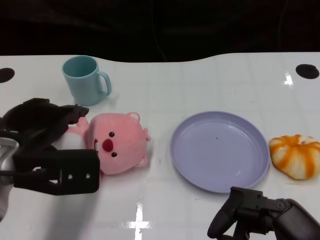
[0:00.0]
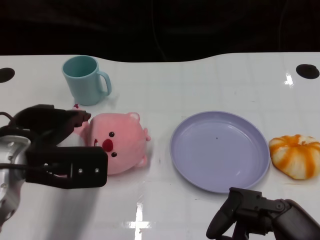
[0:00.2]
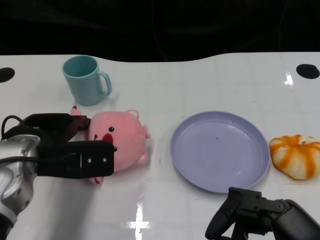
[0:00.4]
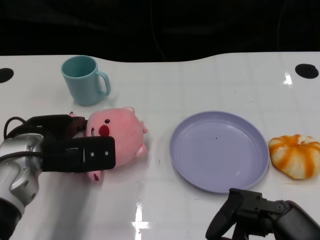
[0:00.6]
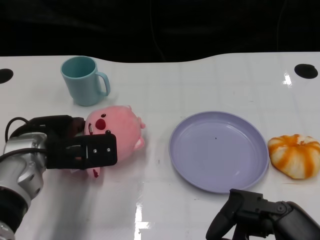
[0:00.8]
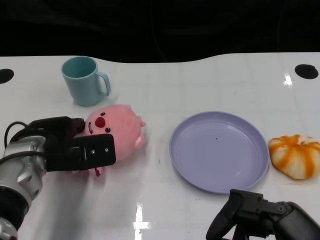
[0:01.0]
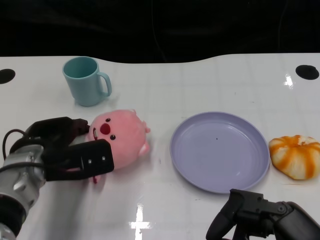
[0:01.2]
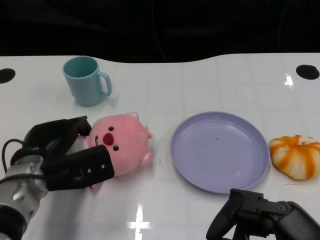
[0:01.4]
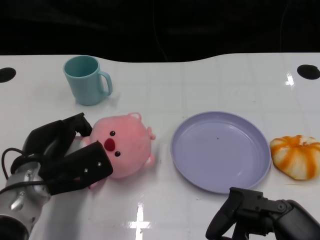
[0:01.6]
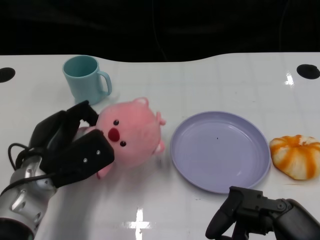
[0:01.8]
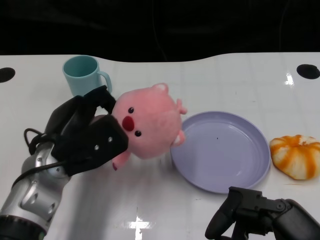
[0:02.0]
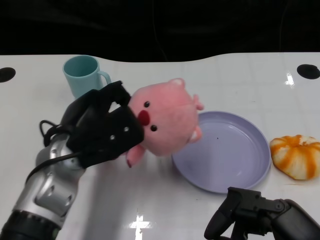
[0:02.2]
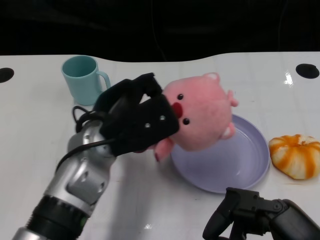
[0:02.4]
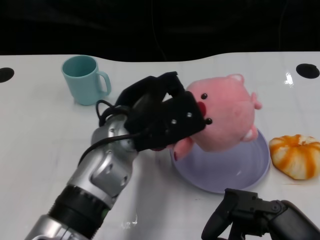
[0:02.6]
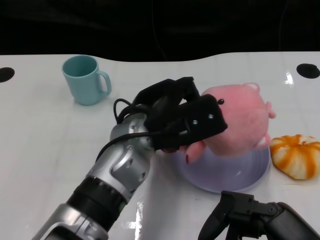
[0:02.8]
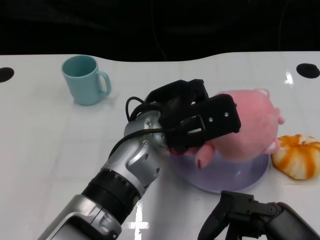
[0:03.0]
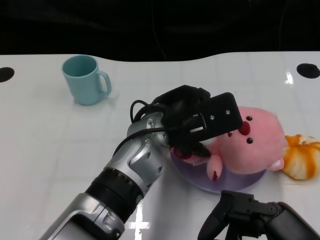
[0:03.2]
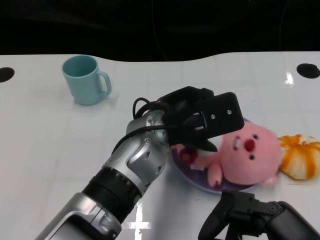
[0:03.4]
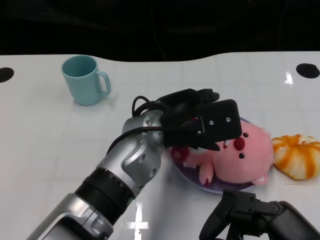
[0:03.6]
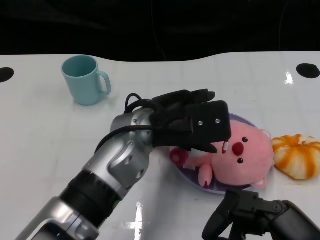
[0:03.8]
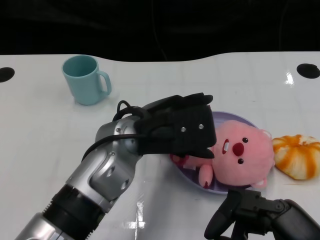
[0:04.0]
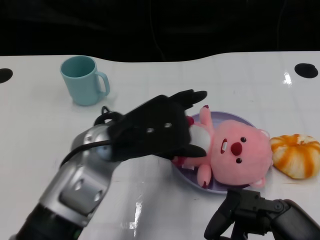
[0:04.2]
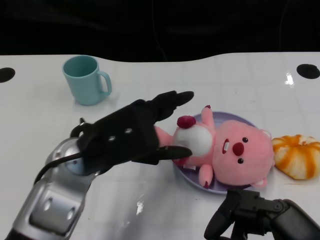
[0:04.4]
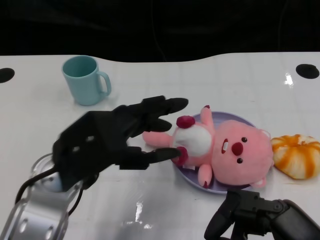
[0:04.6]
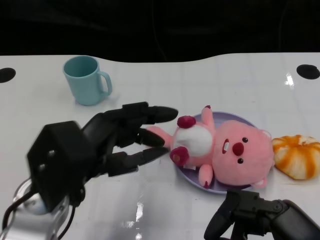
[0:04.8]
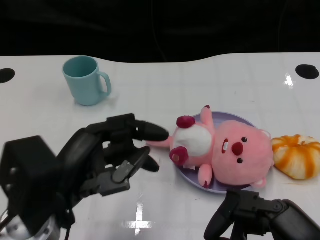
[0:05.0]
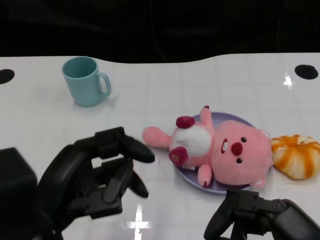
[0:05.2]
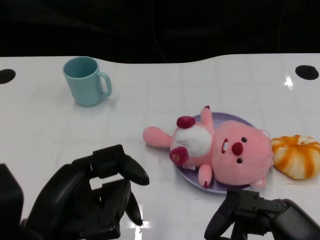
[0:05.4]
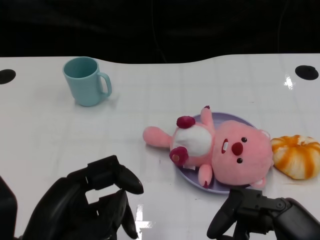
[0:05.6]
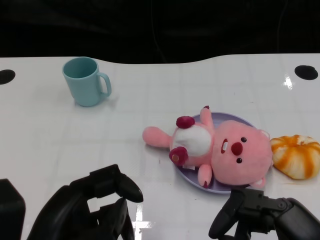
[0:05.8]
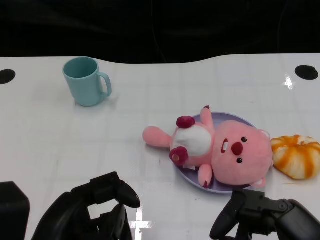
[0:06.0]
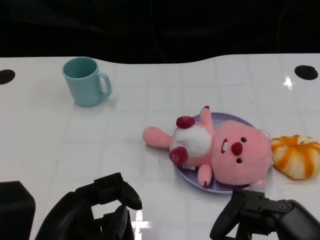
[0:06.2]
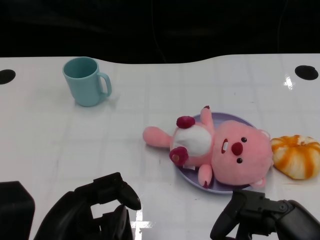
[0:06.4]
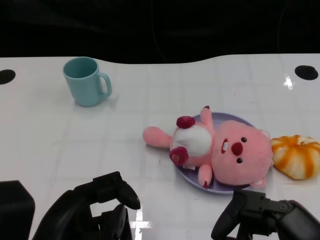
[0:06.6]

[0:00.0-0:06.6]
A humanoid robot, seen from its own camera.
Task of the whole recording: Pick up the doll on one side of the plate and place it into the plate.
Step, 0:01.8 to 0:03.8: Place the pink doll into the plate with the left gripper.
0:00.0 to 0:01.6: The left hand moves downward, some 10 cm.
0:01.6 to 0:03.2: The left hand shifts about 20 cm to the right and upward.
0:03.2 to 0:05.0: The left hand travels to the left and backward by about 20 cm.
0:05.0 to 0:06.6: The left hand heads backward, covering about 5 cm.

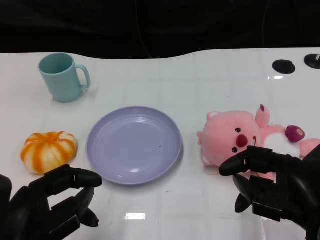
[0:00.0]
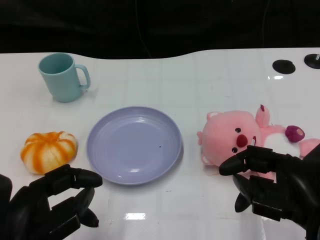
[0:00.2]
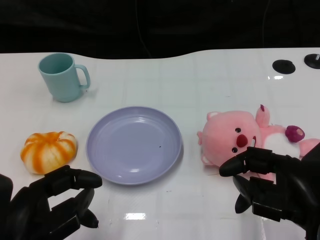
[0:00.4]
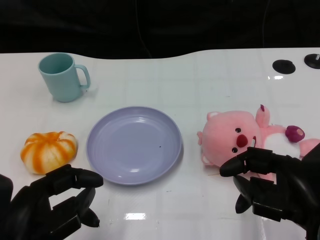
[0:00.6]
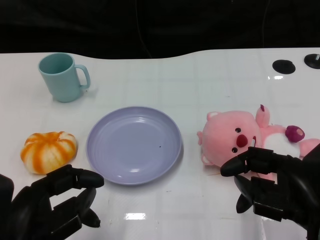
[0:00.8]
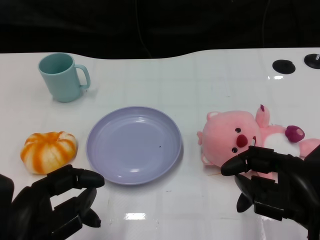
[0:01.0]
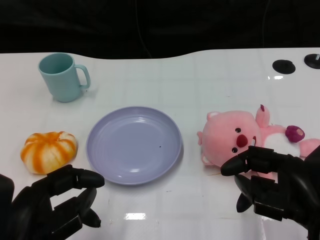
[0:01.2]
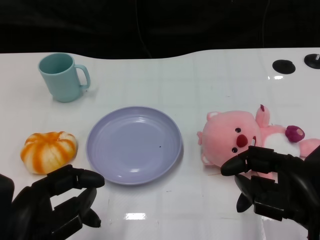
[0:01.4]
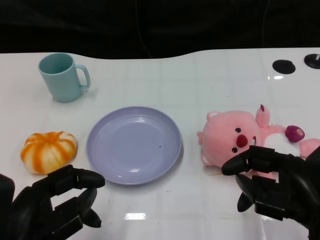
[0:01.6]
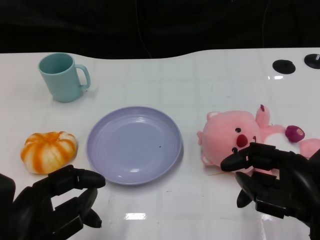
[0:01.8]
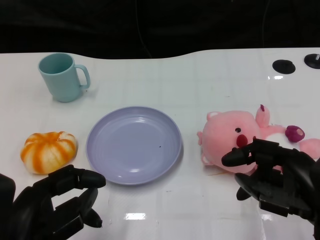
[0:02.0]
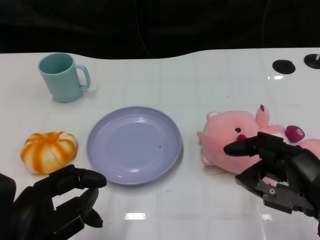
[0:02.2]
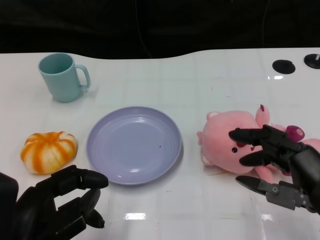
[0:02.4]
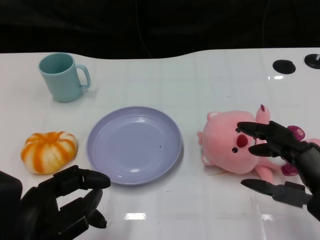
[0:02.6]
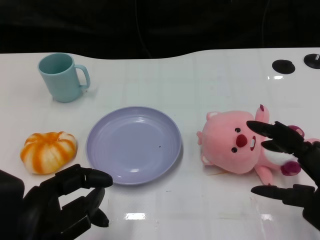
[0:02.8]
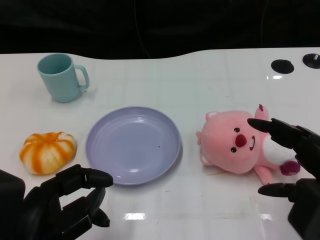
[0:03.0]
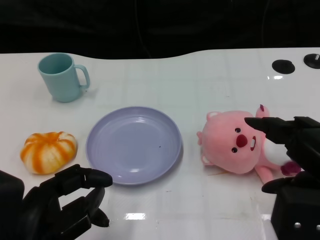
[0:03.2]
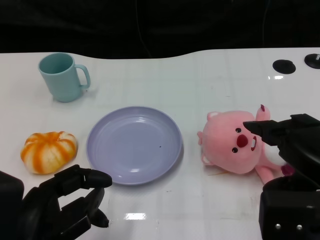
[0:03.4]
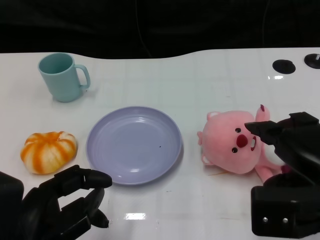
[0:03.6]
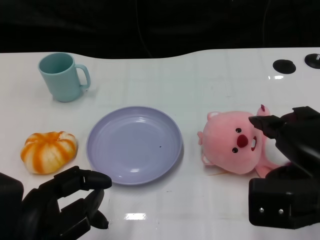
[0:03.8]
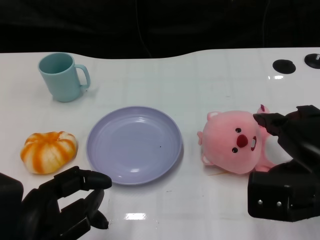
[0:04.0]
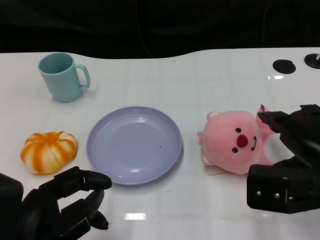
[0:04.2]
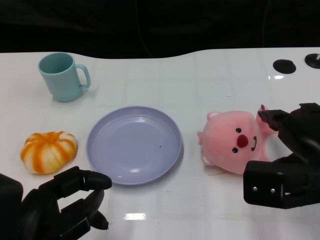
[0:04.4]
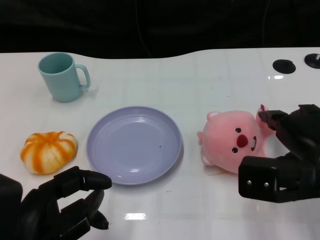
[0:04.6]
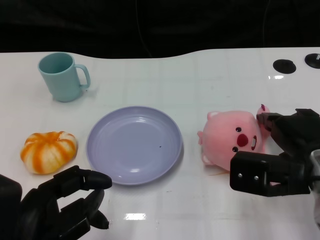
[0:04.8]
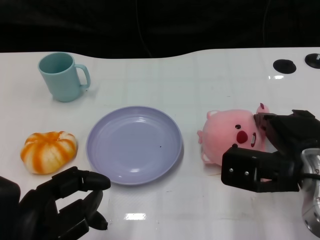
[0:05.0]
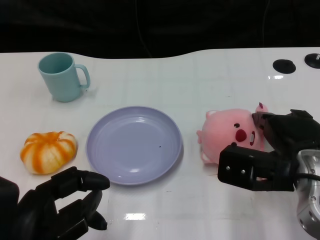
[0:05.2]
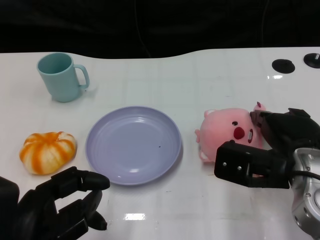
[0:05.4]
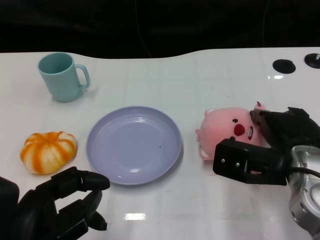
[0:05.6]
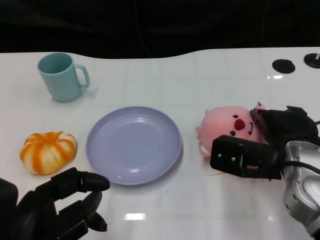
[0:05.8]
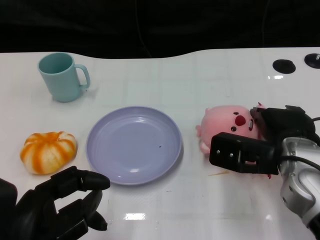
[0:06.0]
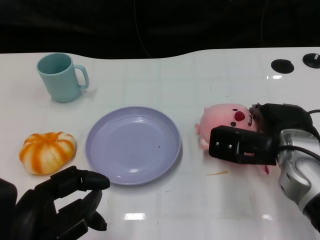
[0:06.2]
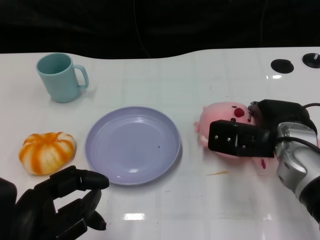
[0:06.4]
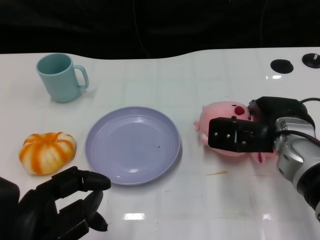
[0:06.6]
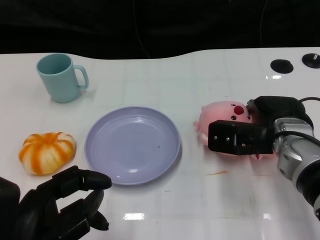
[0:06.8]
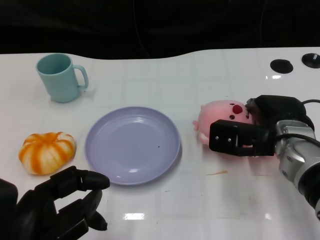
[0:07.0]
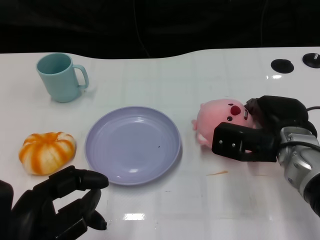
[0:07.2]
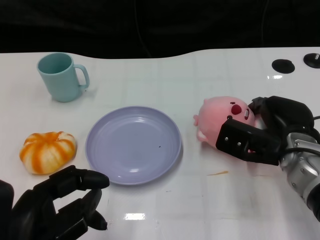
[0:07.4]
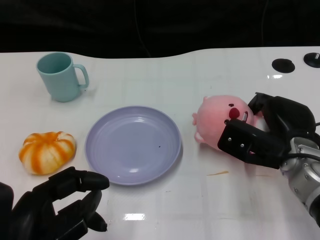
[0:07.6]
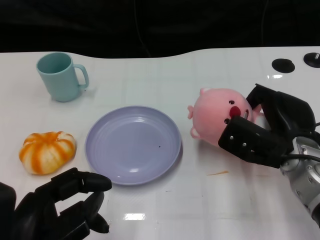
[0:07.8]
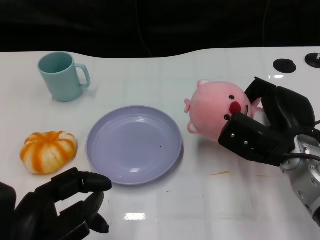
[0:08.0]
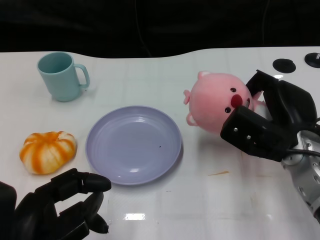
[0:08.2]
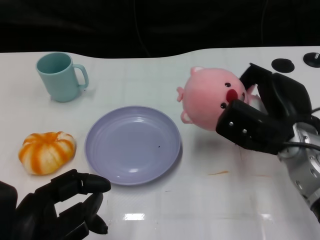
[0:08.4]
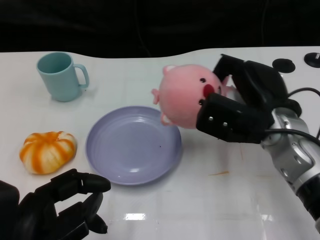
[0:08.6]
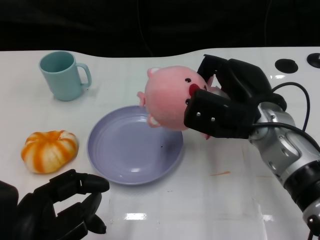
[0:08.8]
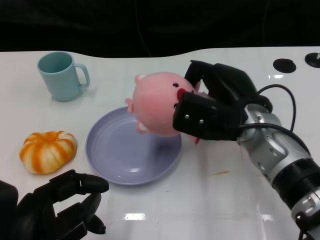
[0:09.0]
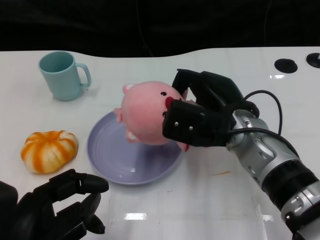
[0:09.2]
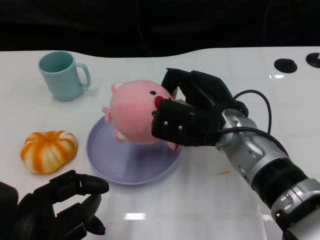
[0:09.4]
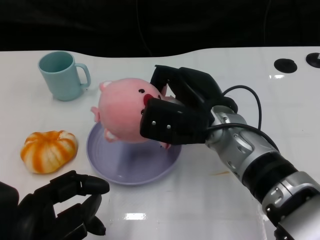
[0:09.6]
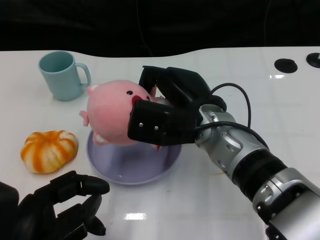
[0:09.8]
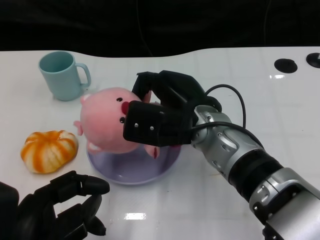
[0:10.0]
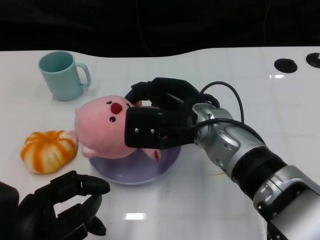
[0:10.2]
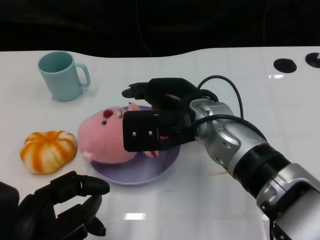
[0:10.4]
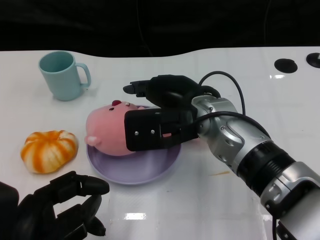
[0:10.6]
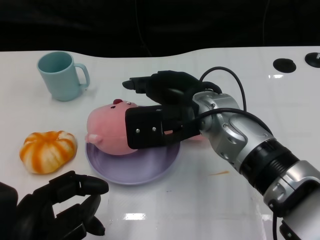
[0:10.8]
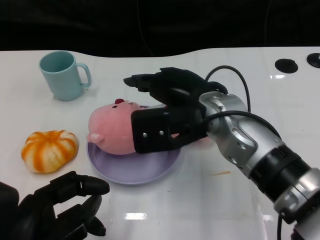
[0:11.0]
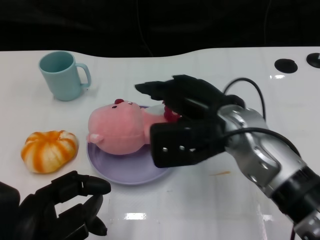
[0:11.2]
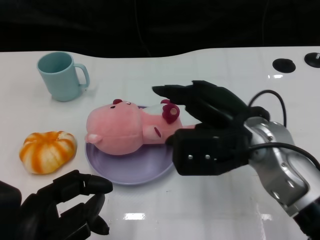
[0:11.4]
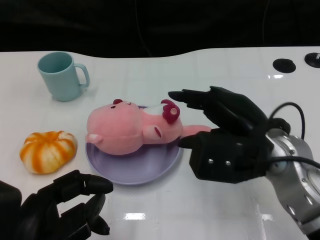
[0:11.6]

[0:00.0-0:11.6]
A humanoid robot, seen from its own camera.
Task of the whole recording: Pick up the doll on the other side of the plate and place it into the plate.
Step, 0:01.4 to 0:08.6: Grasp the pink doll with the right gripper.
Step, 0:08.8 to 0:11.6: Place the pink doll into the plate with the right gripper.
0:02.8 to 0:04.4: The right hand shifts some 5 cm forward.
0:04.4 to 0:05.8: The right hand shifts by some 5 cm.
0:05.8 to 0:07.2: The right hand ends up approximately 5 cm from where it was.
0:07.2 to 0:08.8: The right hand heads upward, covering approximately 5 cm.
0:08.8 to 0:10.2: The right hand moves to the left, roughly 10 cm.
0:10.2 to 0:11.6: The right hand moves to the right, roughly 10 cm.

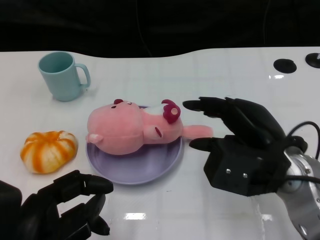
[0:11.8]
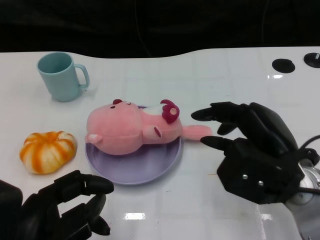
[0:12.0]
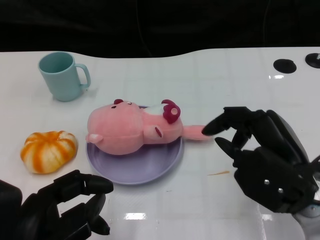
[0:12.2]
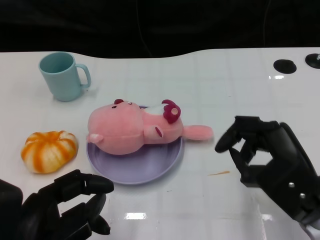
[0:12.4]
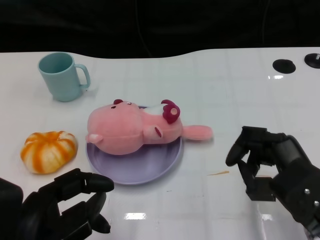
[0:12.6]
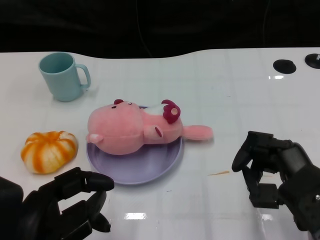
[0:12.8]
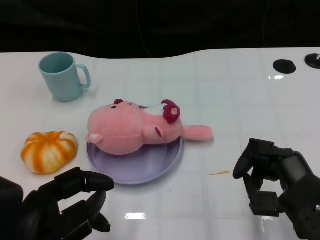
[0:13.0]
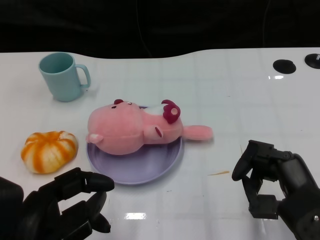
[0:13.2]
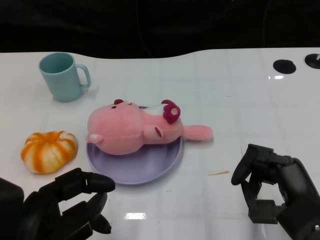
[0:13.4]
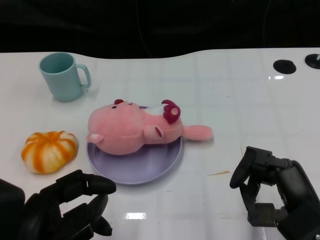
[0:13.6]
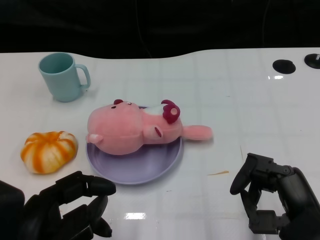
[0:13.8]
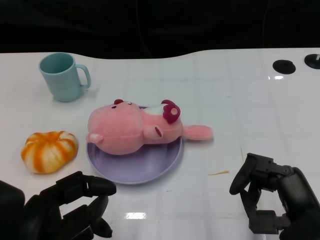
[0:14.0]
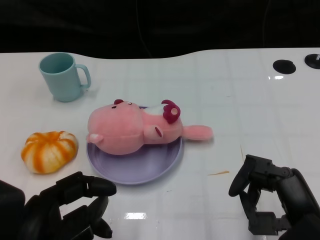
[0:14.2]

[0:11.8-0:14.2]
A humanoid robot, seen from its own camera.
Task of the whole recording: Pick up the doll on the other side of the plate and place it into the plate.
0:11.8 to 0:13.0: The right hand moves backward, roughly 5 cm.
0:13.0 to 0:14.2: There are only small adjustments of the hands.

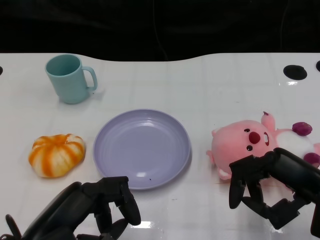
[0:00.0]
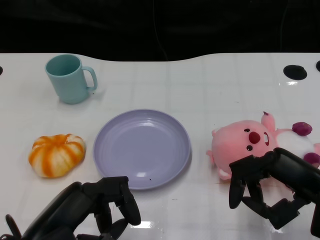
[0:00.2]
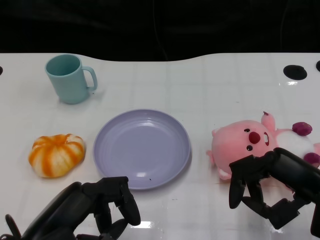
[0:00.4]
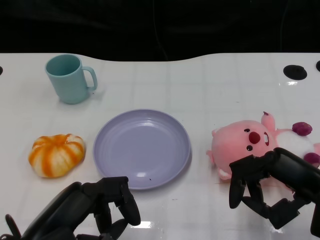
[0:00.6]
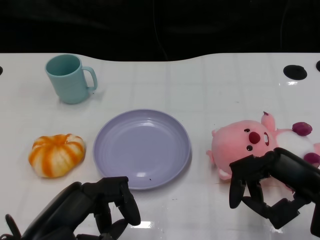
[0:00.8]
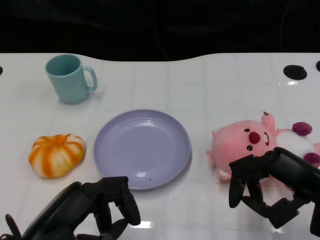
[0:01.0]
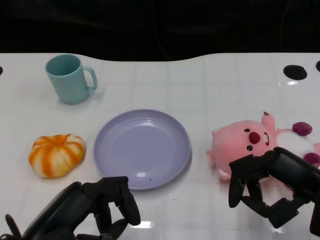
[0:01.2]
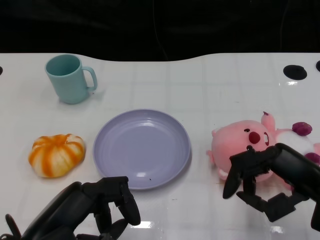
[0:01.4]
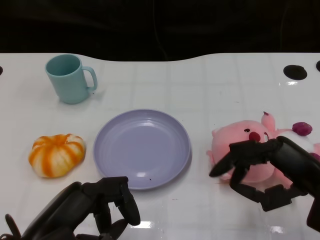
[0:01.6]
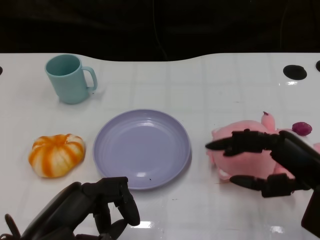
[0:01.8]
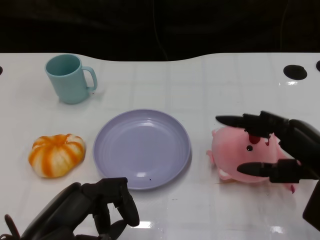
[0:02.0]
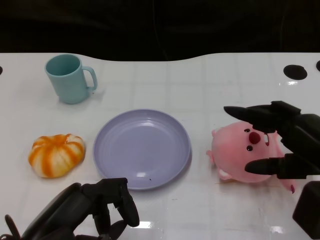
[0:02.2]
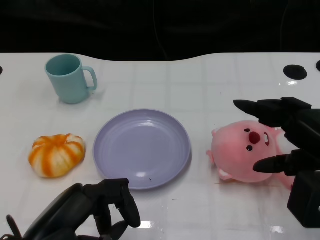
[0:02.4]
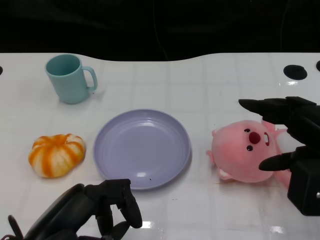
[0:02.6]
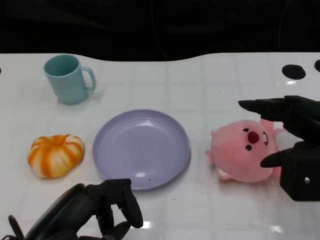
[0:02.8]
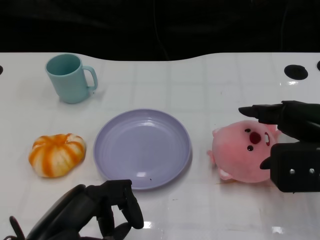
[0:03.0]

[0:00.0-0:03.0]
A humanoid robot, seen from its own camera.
Task of the whole recording: Pick up the doll on the other side of the plate and place it into the plate.
0:01.6 to 0:03.0: The right hand shifts by some 5 cm.
